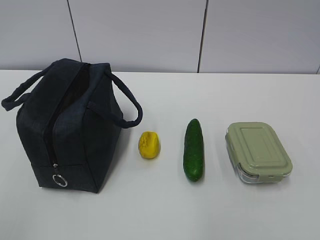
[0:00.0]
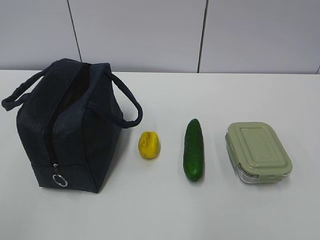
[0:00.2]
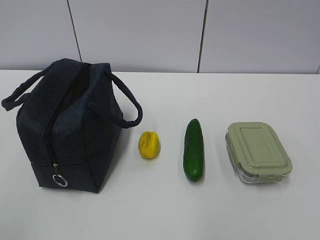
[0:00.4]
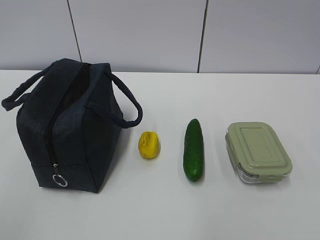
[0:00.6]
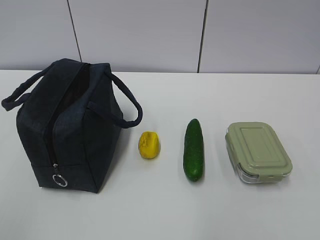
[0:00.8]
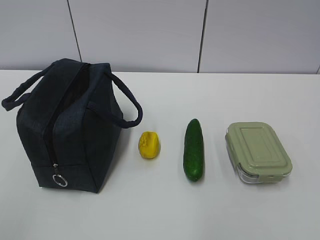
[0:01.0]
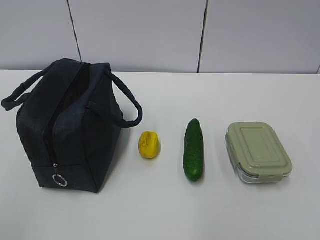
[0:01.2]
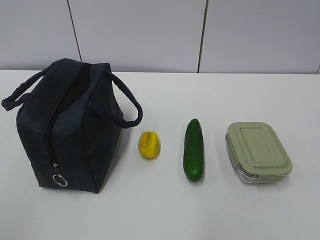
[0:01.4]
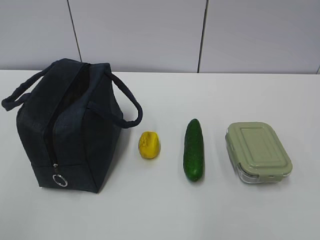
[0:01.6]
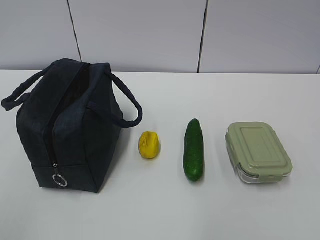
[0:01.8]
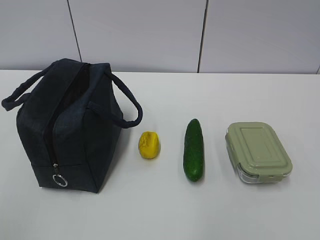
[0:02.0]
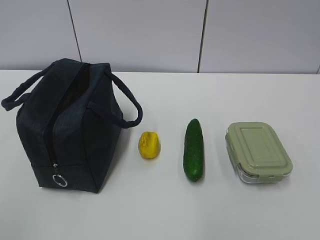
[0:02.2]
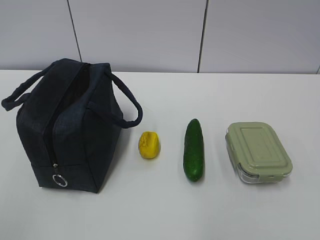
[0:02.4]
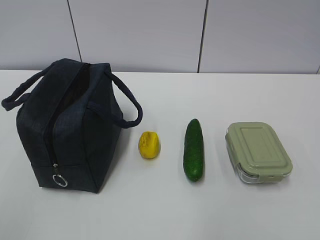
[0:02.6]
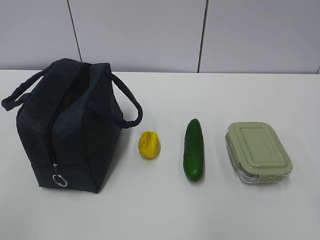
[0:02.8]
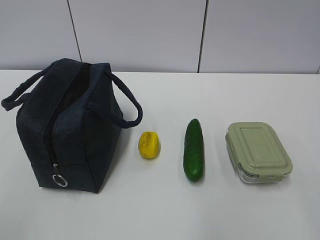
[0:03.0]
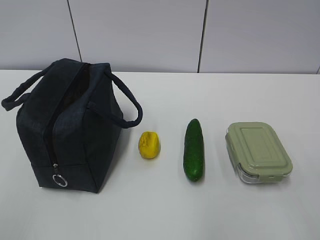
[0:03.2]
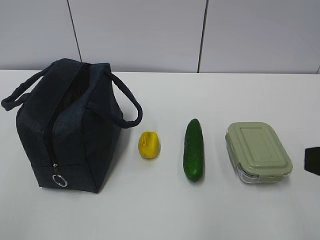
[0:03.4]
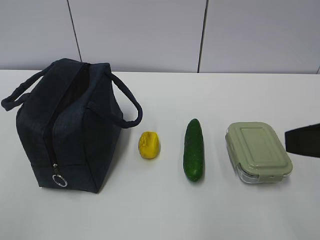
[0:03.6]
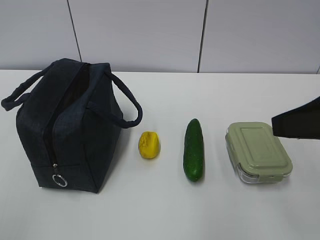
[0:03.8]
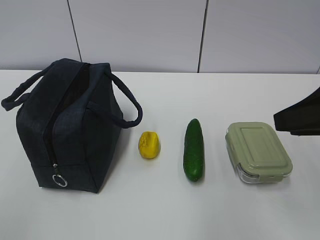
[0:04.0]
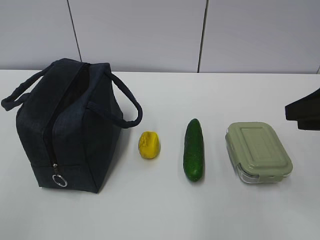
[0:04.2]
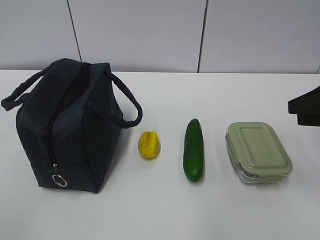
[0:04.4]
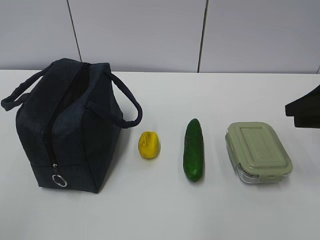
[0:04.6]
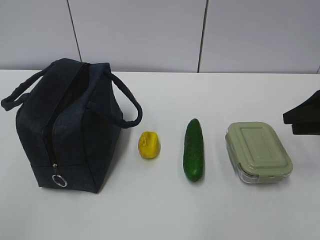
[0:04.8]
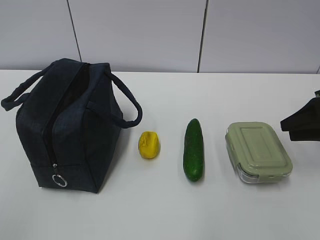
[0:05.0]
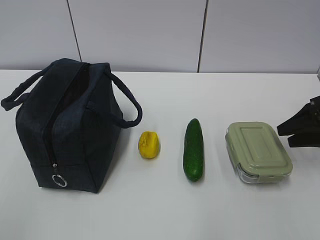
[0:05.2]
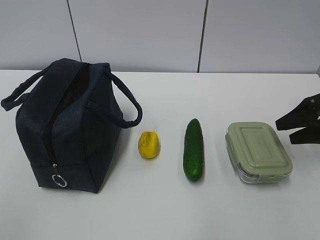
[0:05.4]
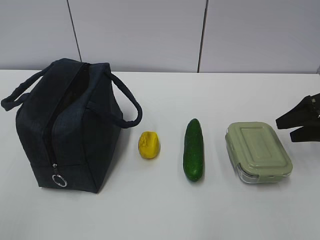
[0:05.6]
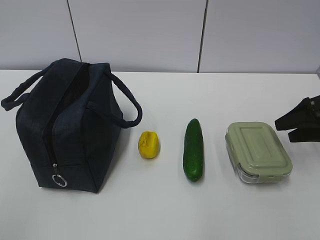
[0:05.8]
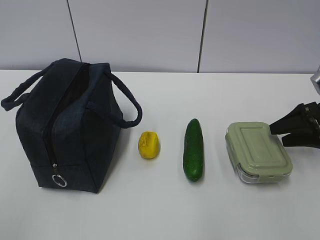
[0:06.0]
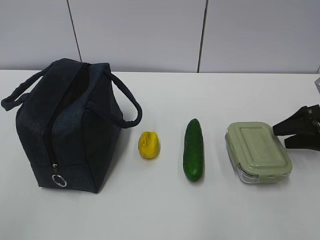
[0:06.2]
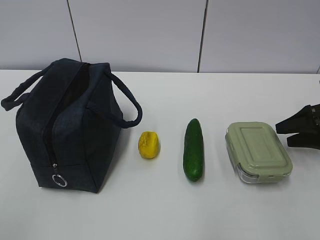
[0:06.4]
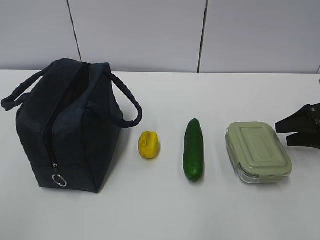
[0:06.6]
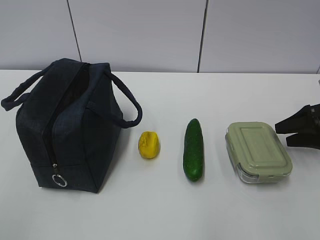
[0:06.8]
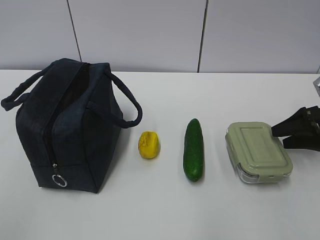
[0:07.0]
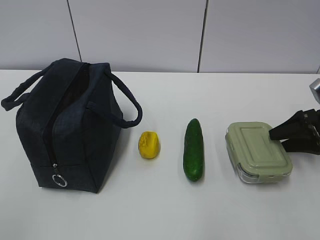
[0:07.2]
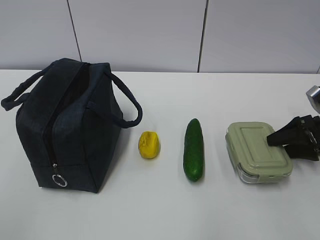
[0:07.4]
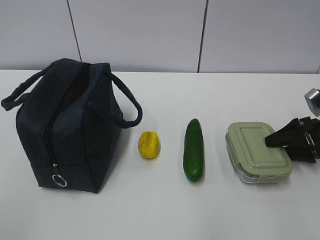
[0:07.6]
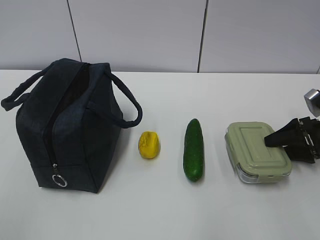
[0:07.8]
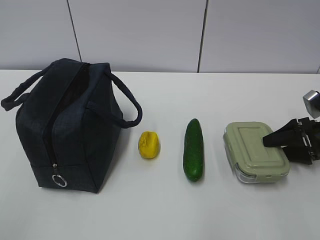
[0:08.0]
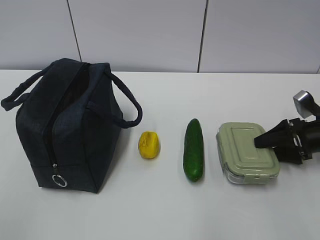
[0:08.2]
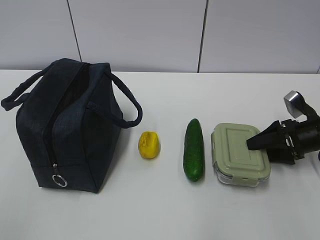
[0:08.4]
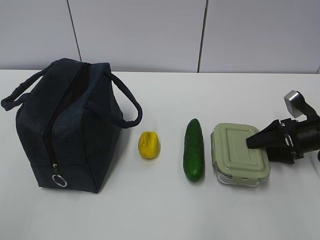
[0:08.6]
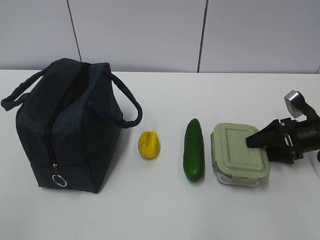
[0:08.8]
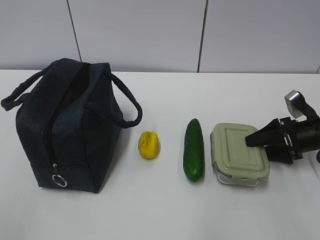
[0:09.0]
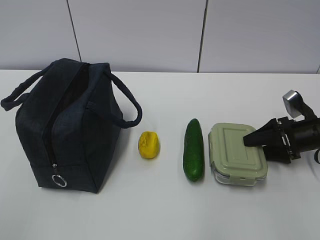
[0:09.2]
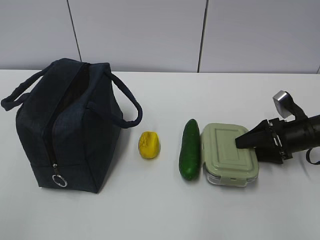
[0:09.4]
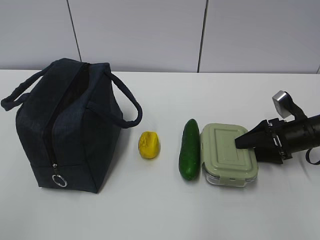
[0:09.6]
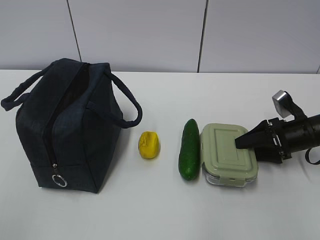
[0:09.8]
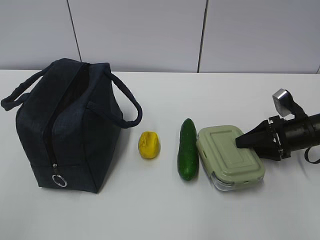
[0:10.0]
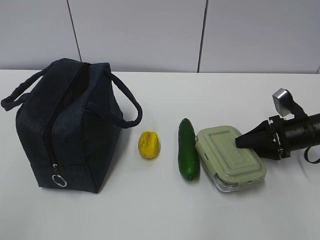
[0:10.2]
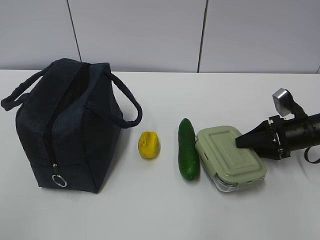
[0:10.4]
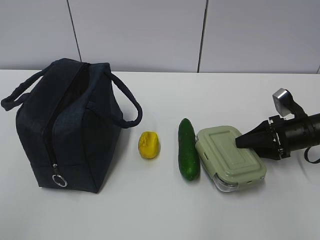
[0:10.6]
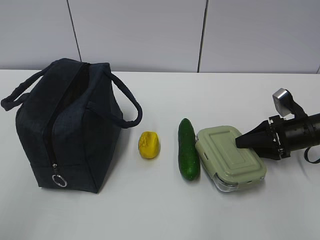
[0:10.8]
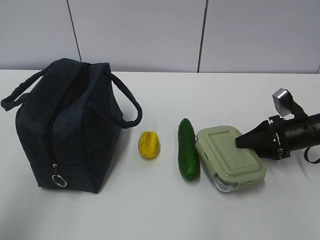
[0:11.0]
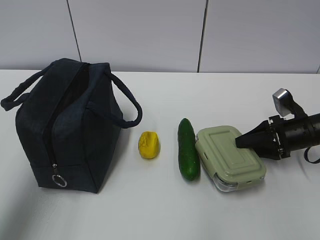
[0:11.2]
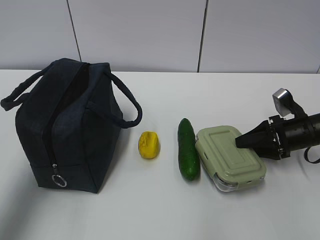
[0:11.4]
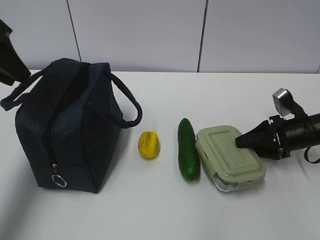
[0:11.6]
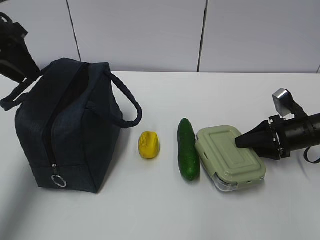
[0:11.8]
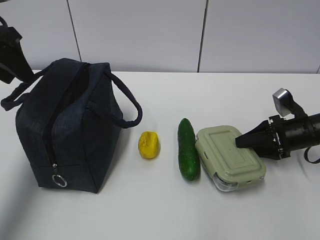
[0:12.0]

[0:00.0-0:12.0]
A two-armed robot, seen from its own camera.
Step, 0:00.0 to 0:11.2: Grab the lunch box with your right hand.
0:03.0 to 0:04.4: The right gripper moves forward, approximately 25 cm.
0:04.4 to 0:06.0: The right gripper goes approximately 15 cm downward, forward and to the right, and opens up.
0:06.0 to 0:07.6: The grippers stay close to where they were, moving slightly.
0:07.6 to 0:09.0: The grippers move only a little.
0:09.0 to 0:10.4: The right gripper closes.
0:10.4 to 0:12.0: The left gripper heads forward, covering roughly 35 cm.

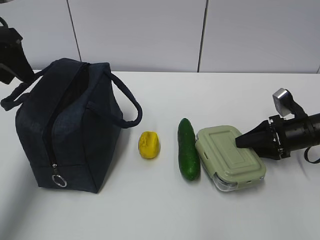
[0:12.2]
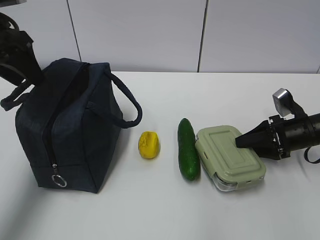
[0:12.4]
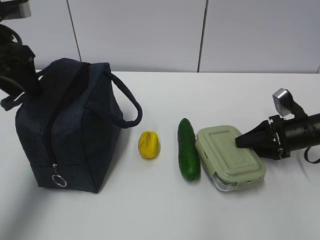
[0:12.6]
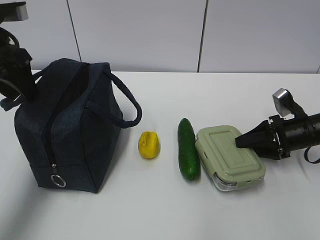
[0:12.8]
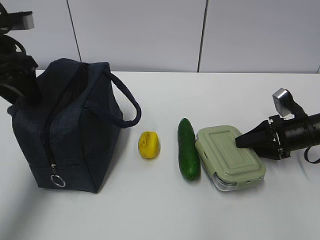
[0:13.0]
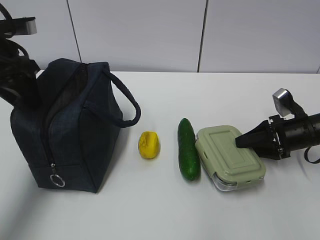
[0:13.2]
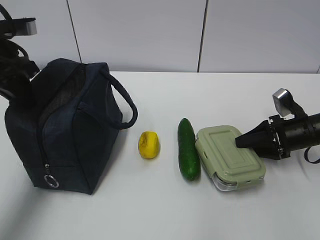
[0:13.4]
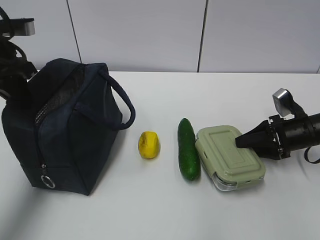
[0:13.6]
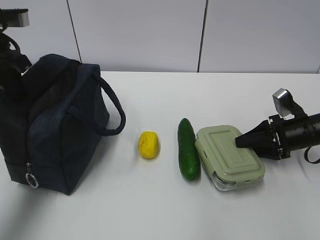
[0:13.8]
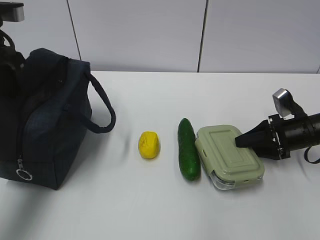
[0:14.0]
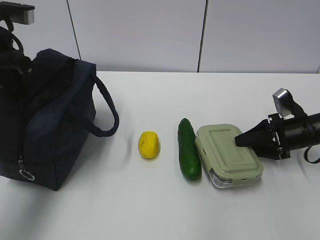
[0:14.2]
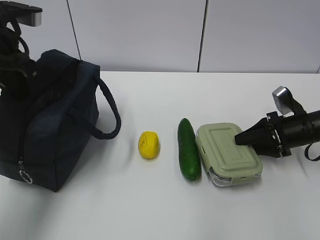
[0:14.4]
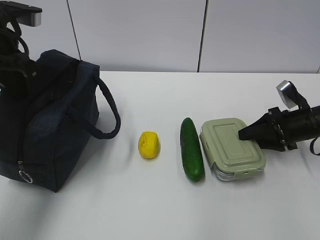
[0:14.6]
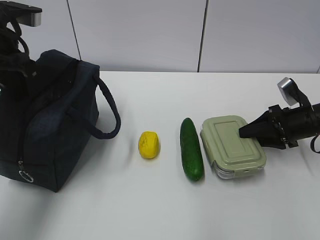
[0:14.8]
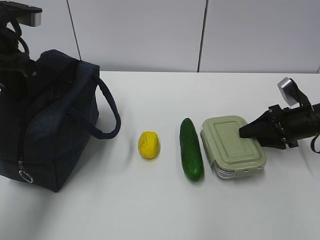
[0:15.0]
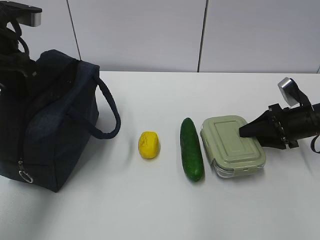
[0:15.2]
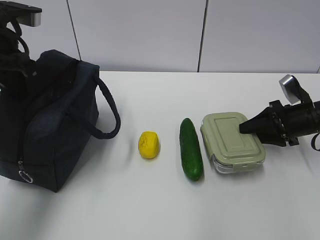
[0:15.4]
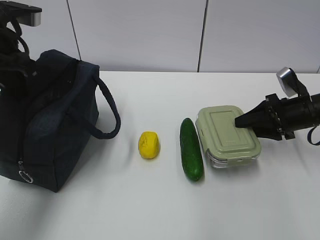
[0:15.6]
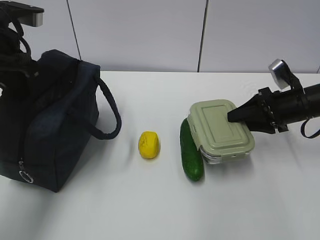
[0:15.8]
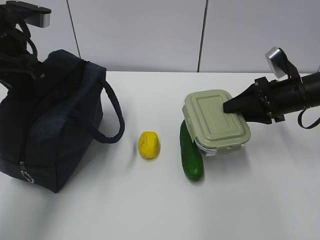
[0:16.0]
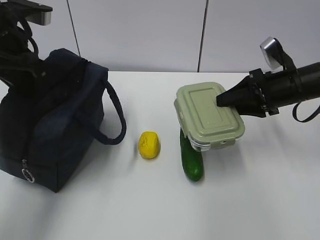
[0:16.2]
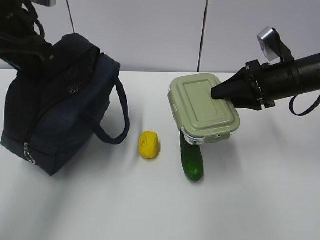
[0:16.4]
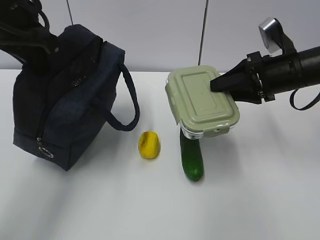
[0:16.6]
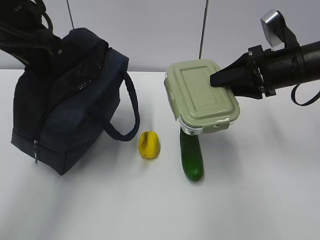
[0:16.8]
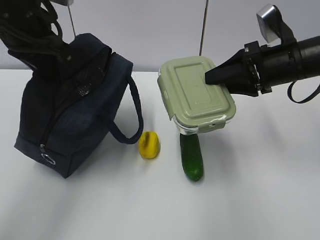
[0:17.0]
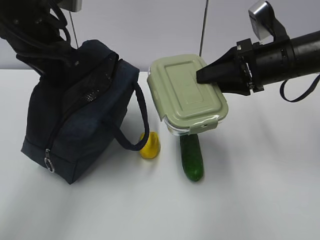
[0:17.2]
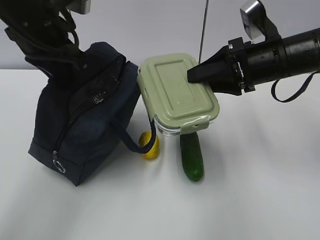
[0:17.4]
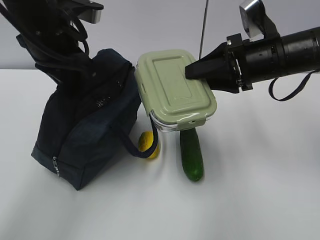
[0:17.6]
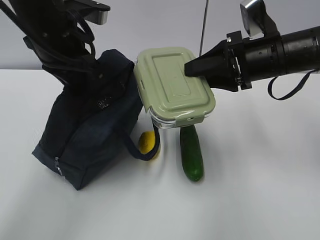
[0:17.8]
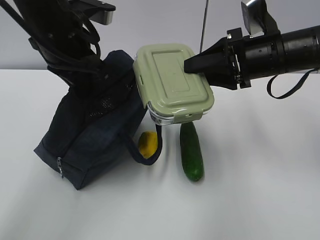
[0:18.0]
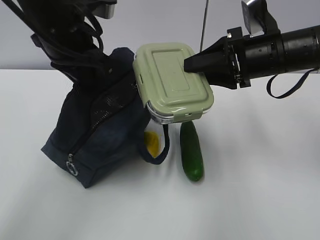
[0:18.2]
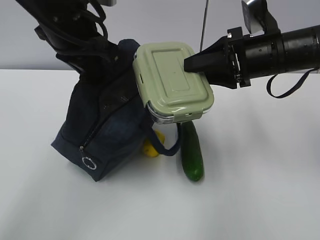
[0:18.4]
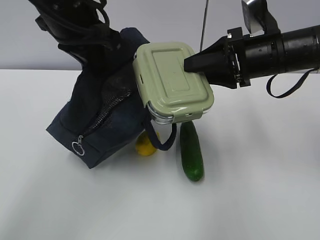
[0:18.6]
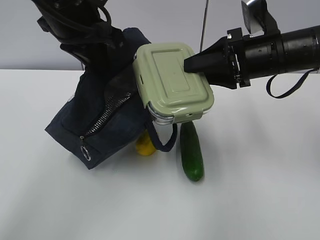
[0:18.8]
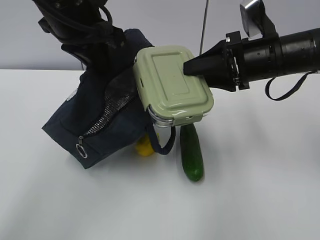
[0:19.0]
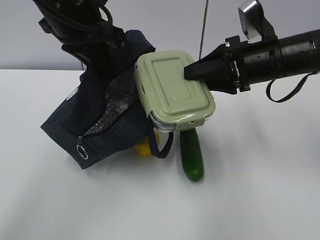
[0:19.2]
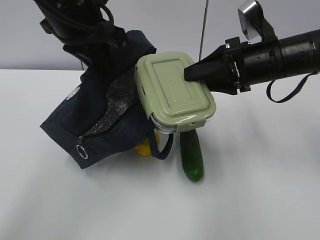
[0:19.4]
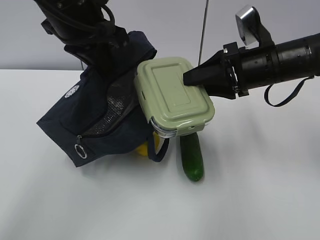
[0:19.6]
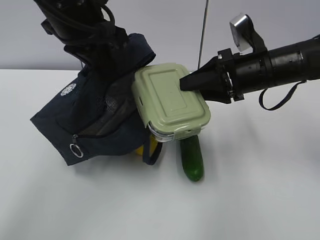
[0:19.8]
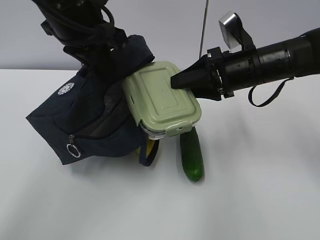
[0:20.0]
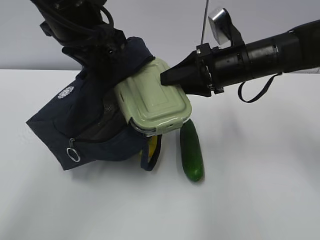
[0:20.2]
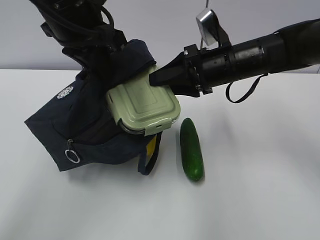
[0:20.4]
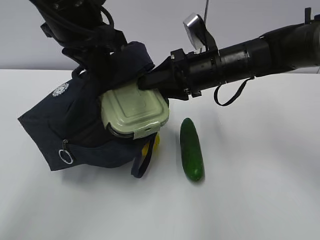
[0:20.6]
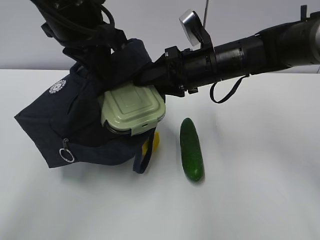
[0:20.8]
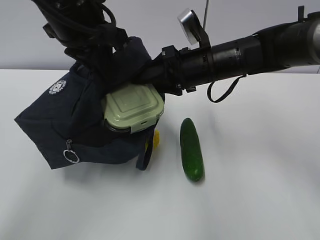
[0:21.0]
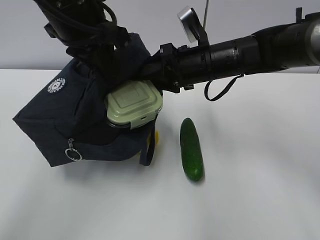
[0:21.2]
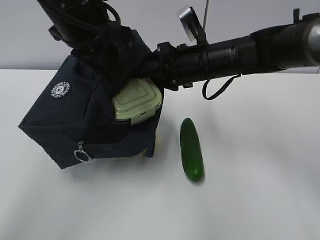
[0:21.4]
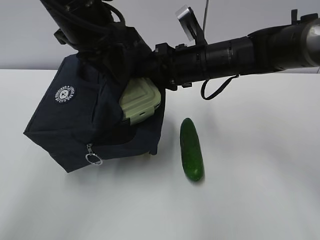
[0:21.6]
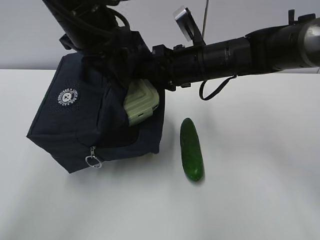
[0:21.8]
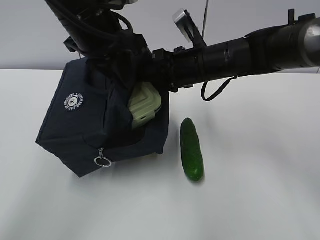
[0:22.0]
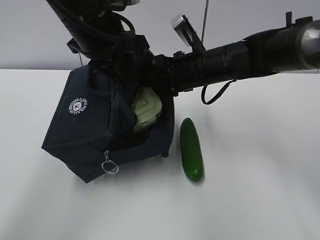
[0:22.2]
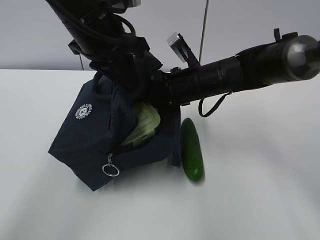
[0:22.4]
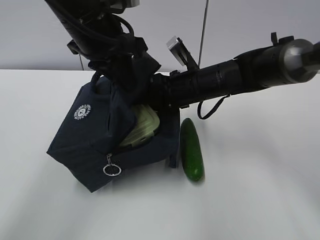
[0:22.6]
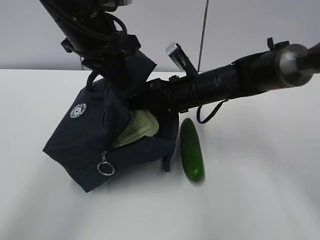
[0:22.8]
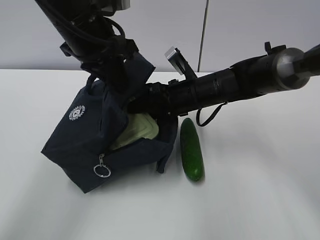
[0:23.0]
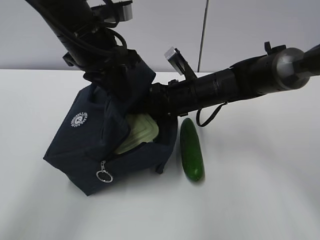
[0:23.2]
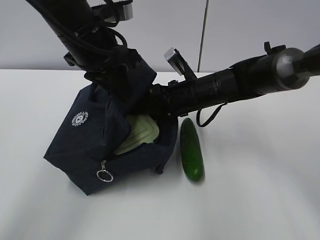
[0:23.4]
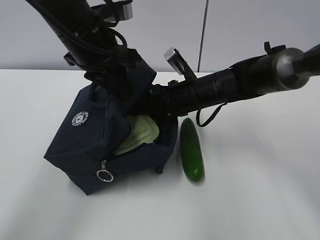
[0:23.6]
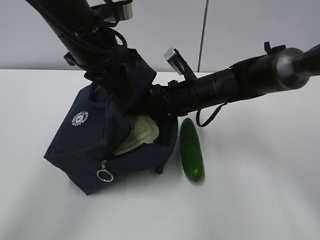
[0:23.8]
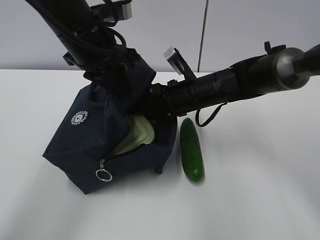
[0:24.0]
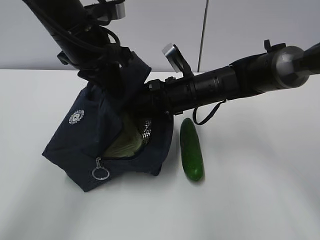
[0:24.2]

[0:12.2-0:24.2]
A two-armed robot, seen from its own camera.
Step, 0:12.2 to 0:15.2: Grab the lunch bag with your left hand.
Step, 0:15.4 to 0:20.2: Place it into the bag with your right hand.
Step, 0:20.6 to 0:23.6: Grab the cucumber with your right hand.
0:12.2 to 0:13.8: The left gripper closes.
0:13.8 to 0:15.2: The grippers move only a little.
0:15.2 to 0:16.6: The left gripper shifts by approximately 5 cm, while the right gripper travels upward and to the left by roughly 15 cm.
0:16.6 to 0:18.2: The right gripper changes place by approximately 5 cm; the left gripper travels to the right by approximately 5 cm.
0:19.8 to 0:21.2: The right gripper heads to the left, covering about 10 cm.
0:21.2 to 0:22.6: The right gripper goes about 5 cm downward.
0:22.6 to 0:24.2: The grippers move only a little.
